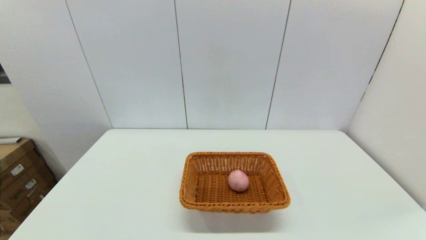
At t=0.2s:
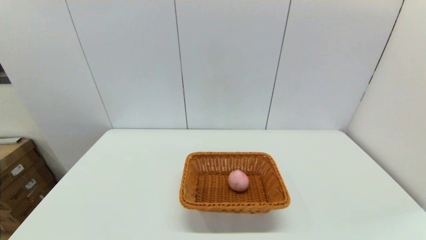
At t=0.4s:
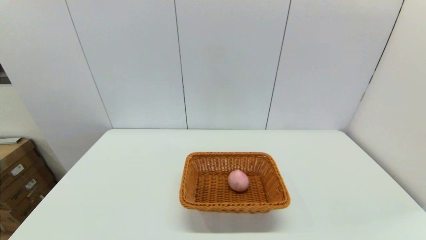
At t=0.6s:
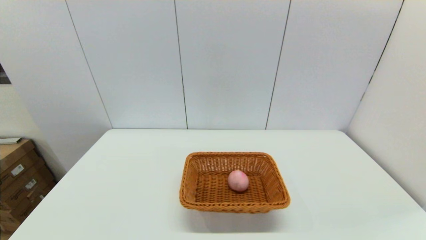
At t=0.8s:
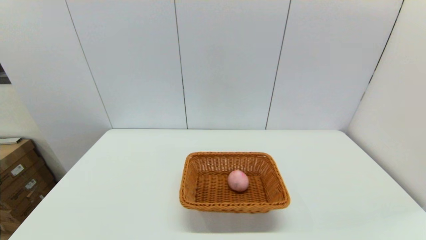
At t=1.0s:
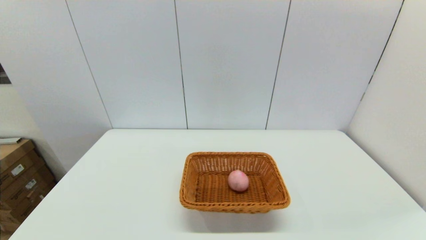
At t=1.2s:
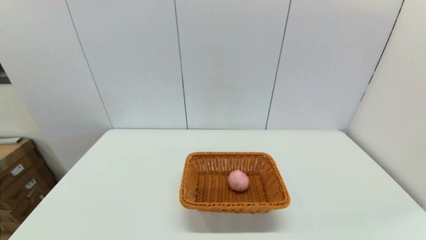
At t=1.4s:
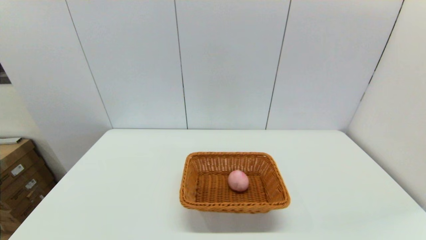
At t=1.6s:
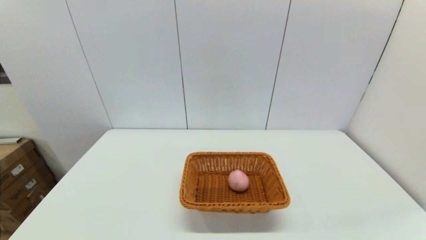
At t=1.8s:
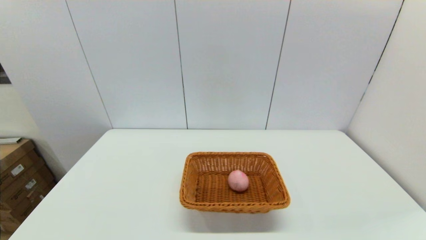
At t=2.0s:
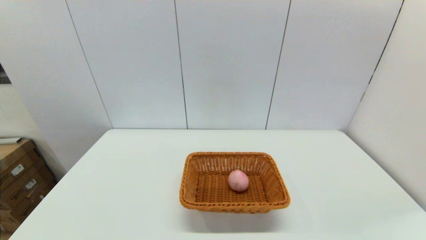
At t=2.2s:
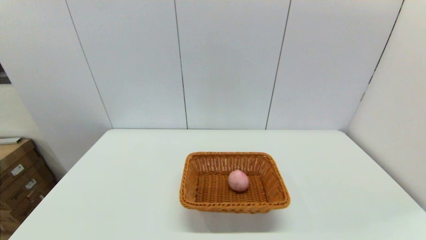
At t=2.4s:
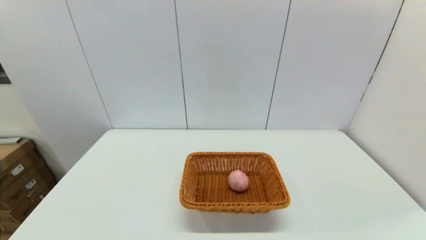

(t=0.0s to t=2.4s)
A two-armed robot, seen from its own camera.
t=1.2s - t=2.4s: Neither gripper changes place.

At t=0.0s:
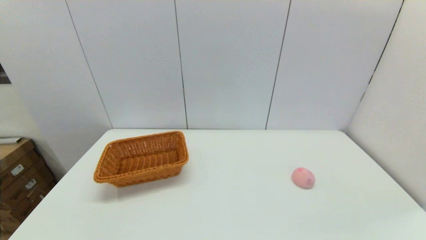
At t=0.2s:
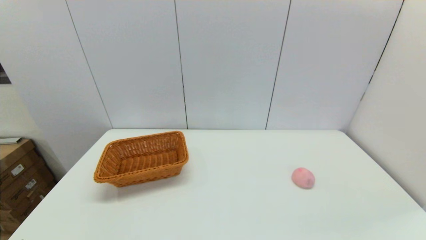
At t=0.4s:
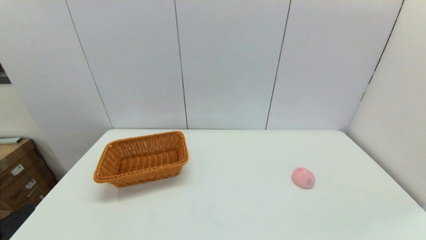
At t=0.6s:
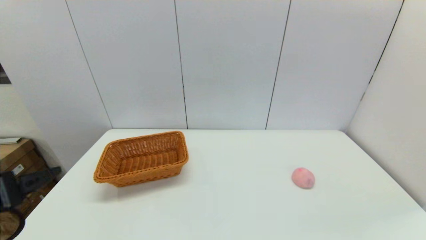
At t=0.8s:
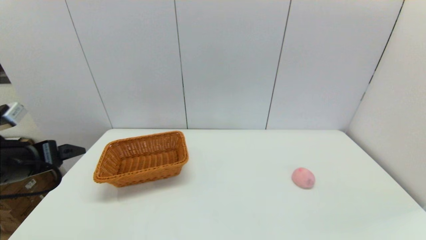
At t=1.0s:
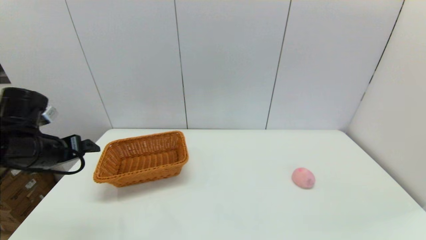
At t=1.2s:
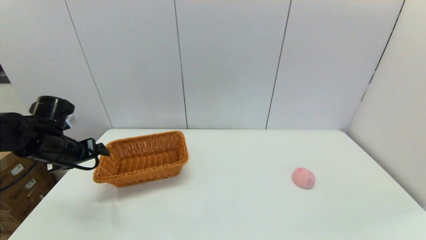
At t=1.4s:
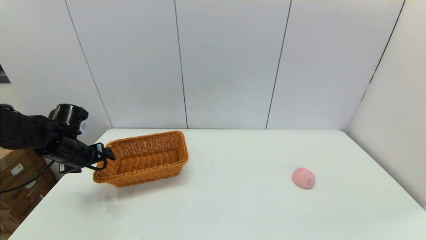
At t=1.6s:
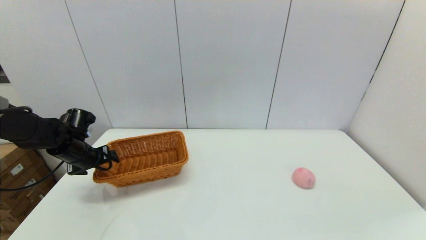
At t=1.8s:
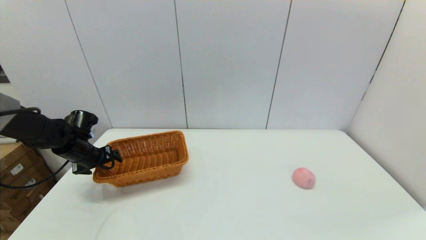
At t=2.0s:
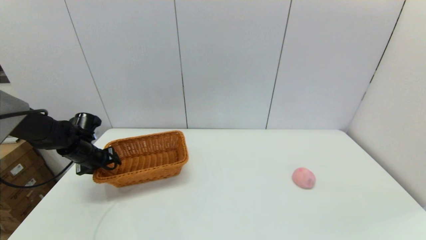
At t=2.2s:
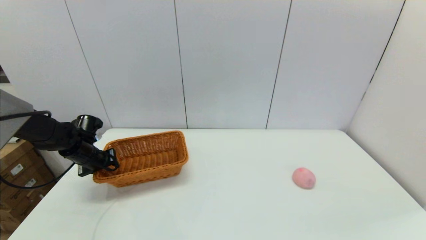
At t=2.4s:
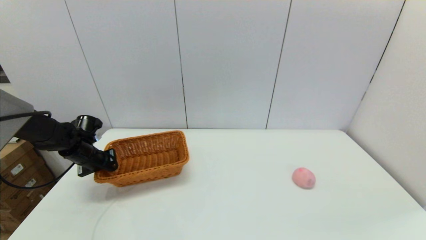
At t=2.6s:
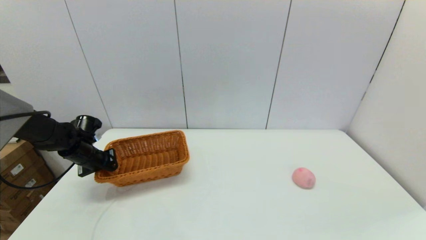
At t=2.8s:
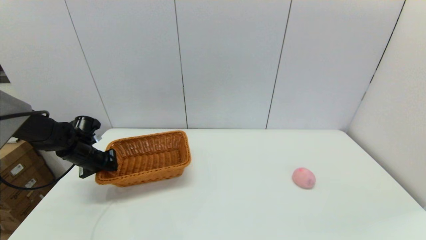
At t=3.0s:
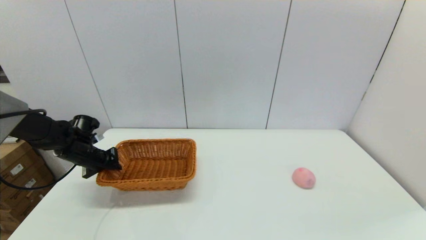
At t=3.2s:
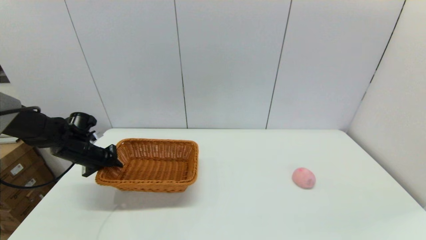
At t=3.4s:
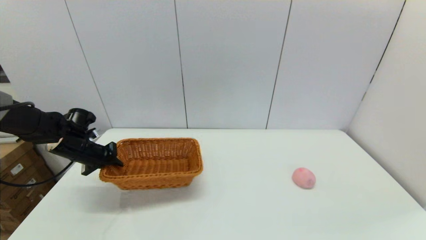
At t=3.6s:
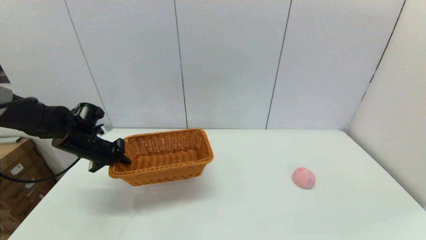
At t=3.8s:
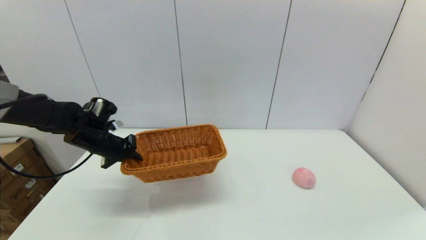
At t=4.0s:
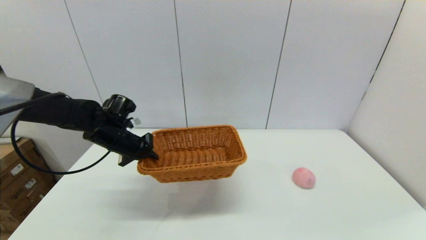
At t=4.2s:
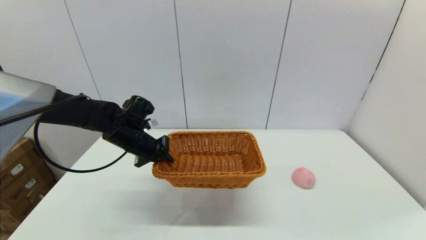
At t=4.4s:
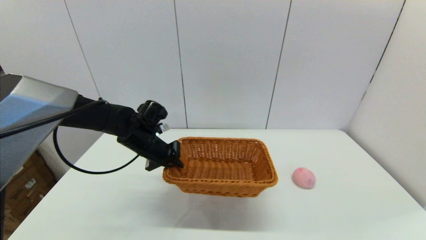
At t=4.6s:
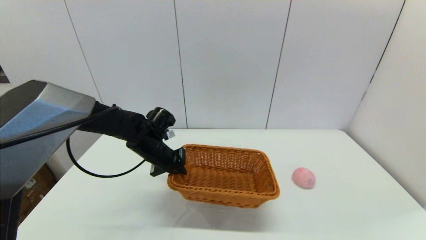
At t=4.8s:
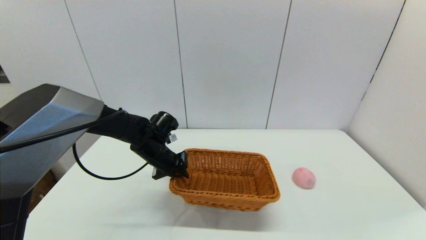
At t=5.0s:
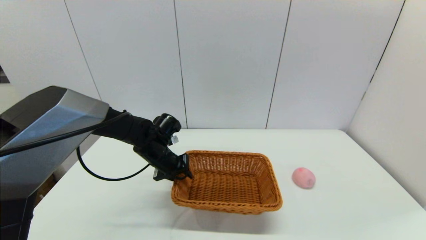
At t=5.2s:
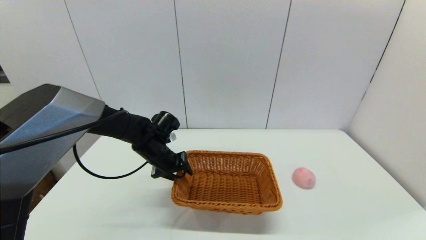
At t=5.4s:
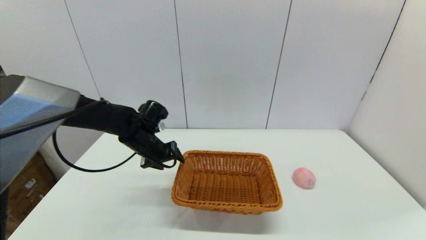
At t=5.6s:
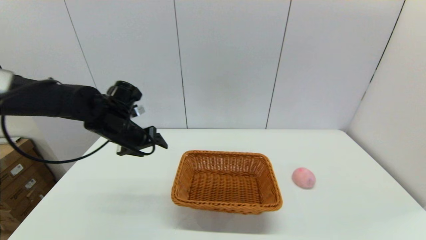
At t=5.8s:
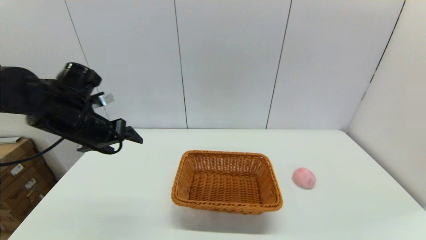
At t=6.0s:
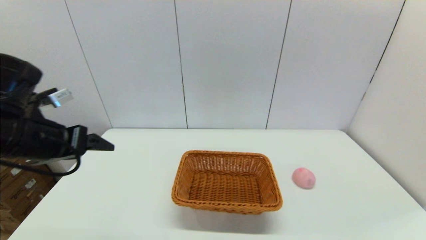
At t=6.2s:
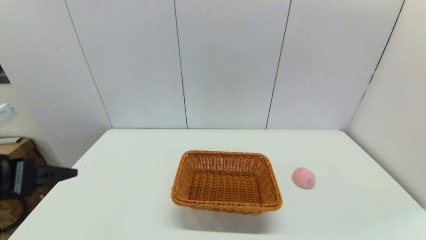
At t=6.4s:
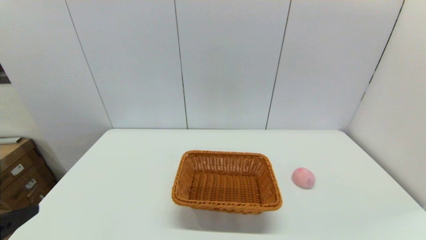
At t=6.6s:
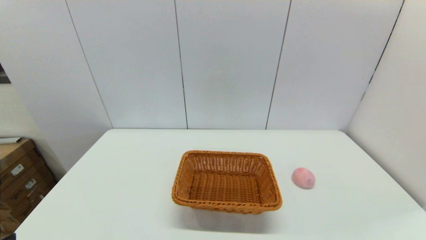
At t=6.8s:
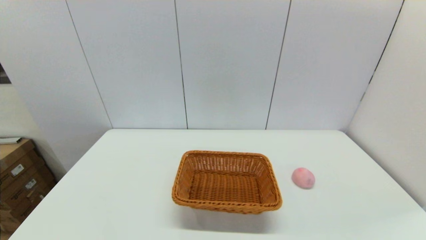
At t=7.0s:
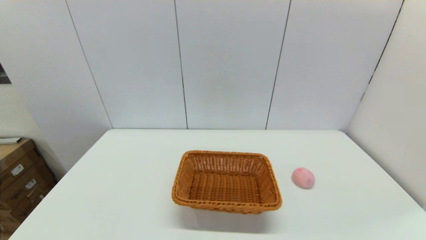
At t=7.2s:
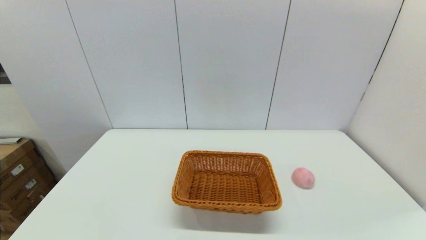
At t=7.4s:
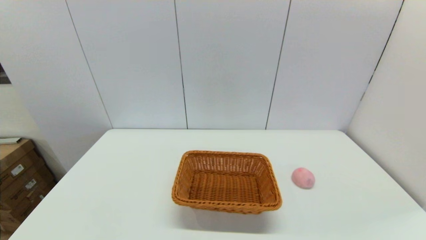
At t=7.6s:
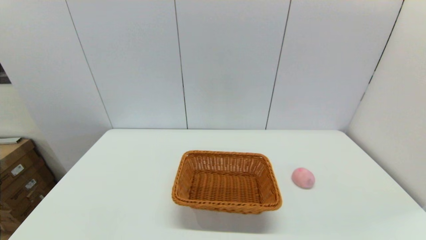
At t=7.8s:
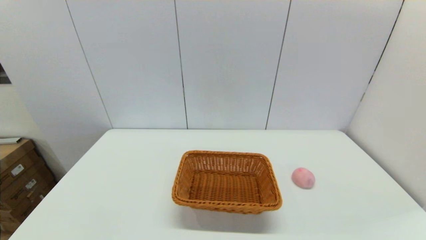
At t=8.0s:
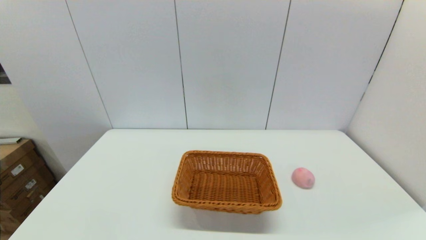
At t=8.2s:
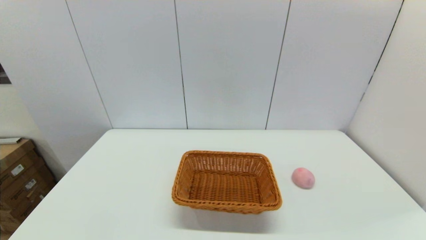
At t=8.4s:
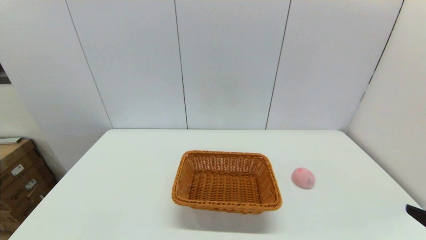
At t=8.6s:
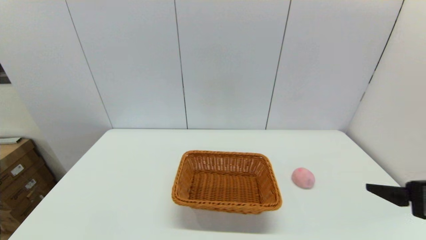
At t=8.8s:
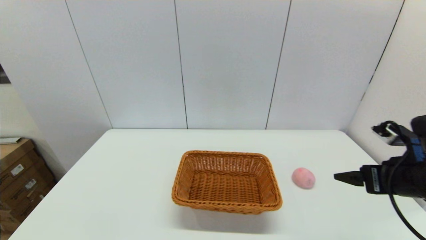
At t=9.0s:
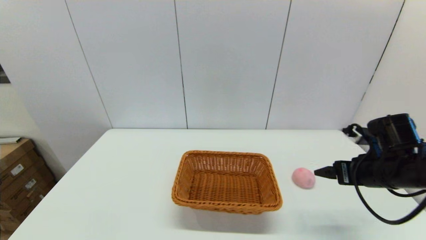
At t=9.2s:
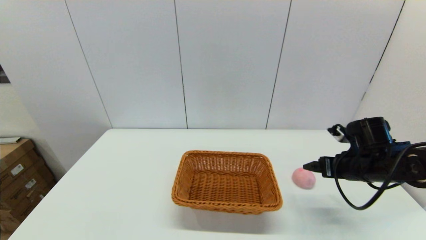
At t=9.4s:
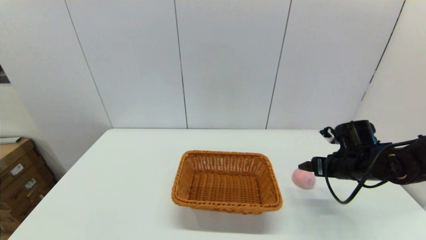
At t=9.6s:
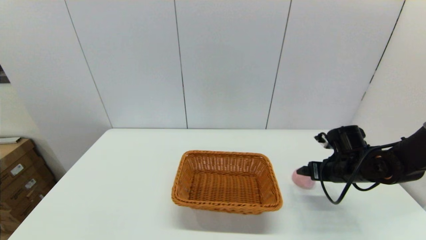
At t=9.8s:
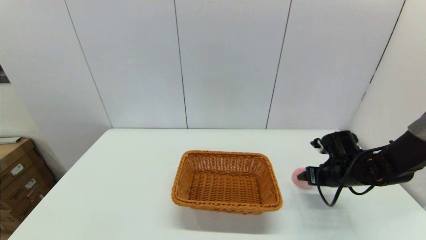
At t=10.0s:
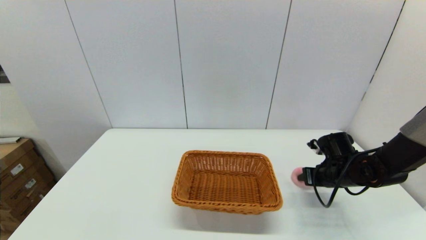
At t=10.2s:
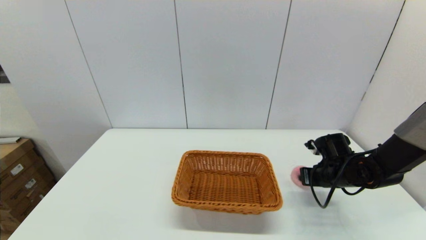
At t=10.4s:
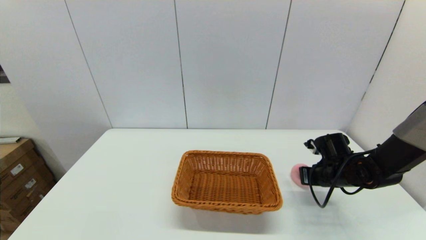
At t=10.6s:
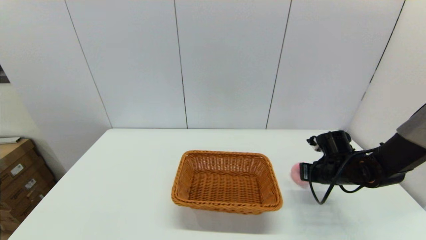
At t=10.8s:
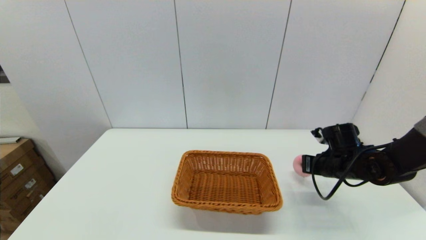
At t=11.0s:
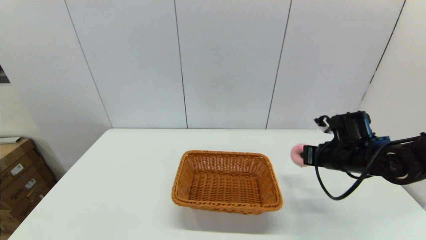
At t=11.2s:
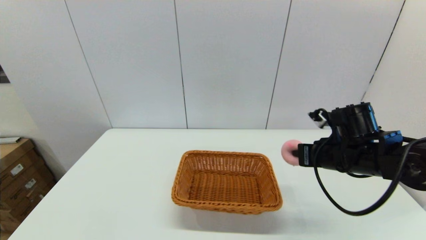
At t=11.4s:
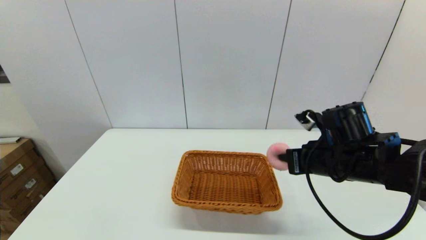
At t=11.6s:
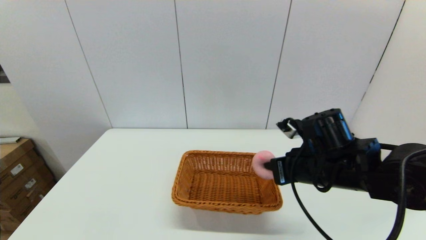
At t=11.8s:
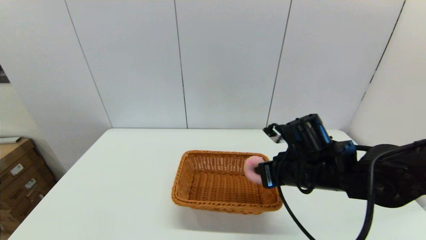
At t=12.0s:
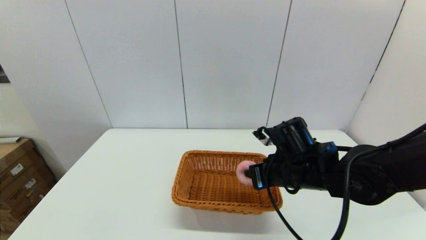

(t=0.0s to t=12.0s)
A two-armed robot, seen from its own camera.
Step, t=0.0s - t=3.0s: Grasp the light basket with the left gripper.
Step, t=3.2s - t=5.0s: Place the light basket on the middle of the table with the left gripper.
Step, t=5.2s - t=10.2s: Grasp the peach with the right gripper.
t=0.0s - t=1.6s: The left gripper is displaced forward by some 40 cm.
t=1.6s - t=3.0s: The left gripper closes.
t=3.0s - t=4.4s: The left gripper shifts some 20 cm to the right.
t=4.4s - t=6.0s: The left gripper goes about 25 cm backward, upward and to the left, and opens its fingers.
t=6.0s - t=7.6s: The left gripper moves backward and downward, about 25 cm.
t=7.6s - t=9.0s: The right gripper moves forward, roughly 30 cm.
t=9.0s - t=10.4s: The right gripper shifts some 10 cm downward and forward, and closes.
t=10.4s - t=12.0s: The right gripper moves to the left, upward and backward, roughly 20 cm.

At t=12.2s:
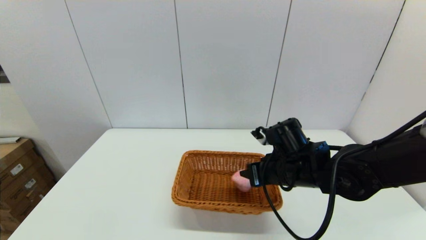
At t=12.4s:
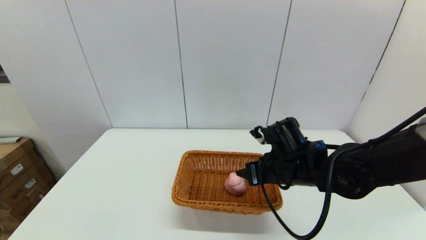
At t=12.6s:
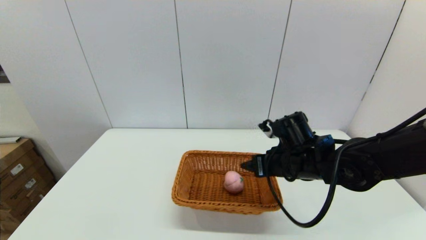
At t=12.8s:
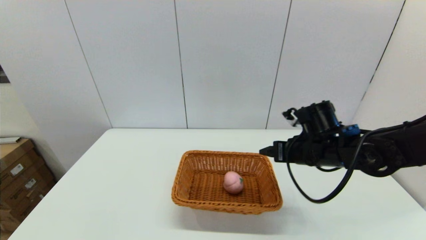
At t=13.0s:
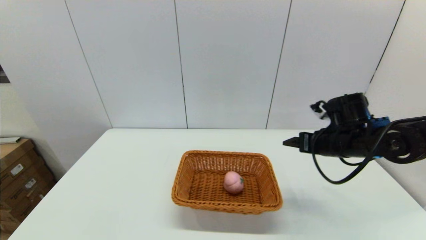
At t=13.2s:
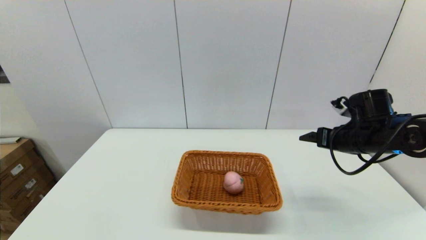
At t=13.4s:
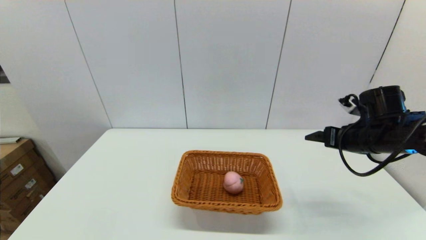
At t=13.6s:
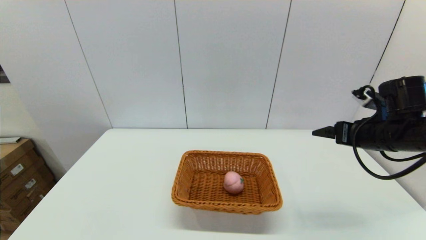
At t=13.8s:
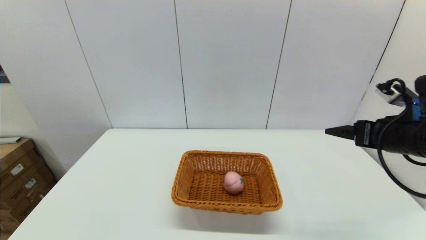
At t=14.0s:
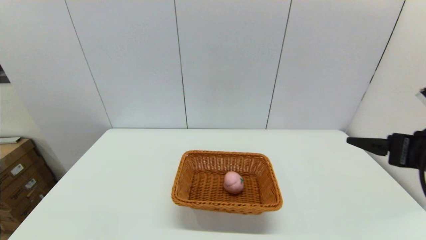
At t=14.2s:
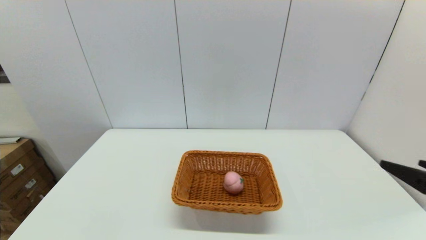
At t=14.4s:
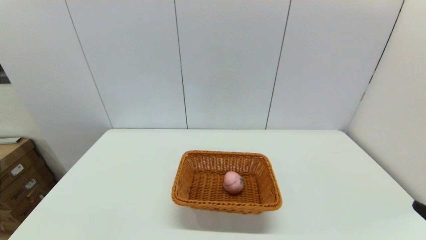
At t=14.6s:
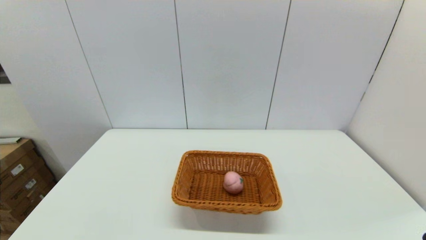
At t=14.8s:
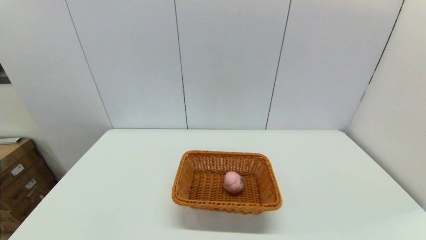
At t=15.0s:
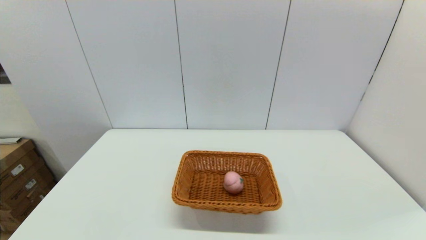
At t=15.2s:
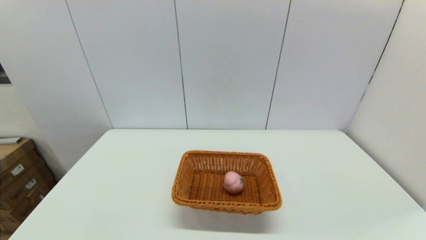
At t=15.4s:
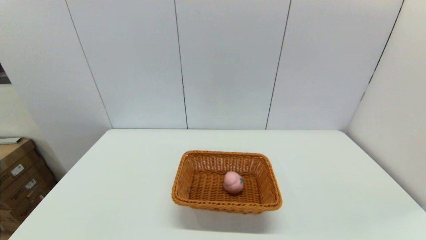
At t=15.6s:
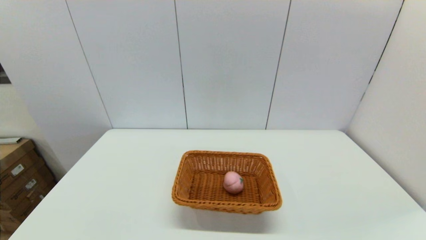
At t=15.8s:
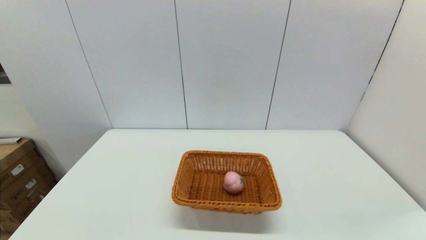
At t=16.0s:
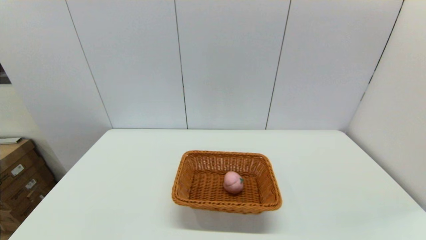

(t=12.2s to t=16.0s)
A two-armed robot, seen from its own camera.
t=12.2s - t=13.4s: The right gripper heads to the right, covering some 20 cm, and opens its fingers.
t=13.4s - t=14.8s: The right gripper heads backward, covering some 30 cm.
